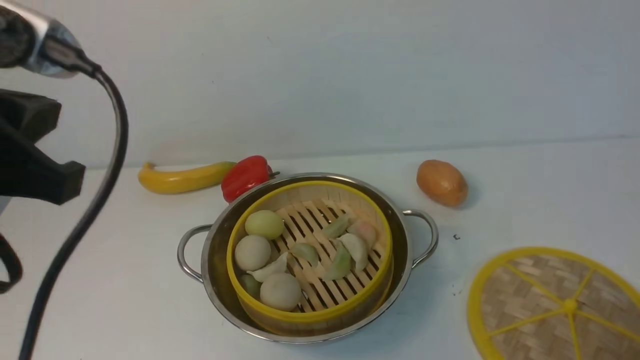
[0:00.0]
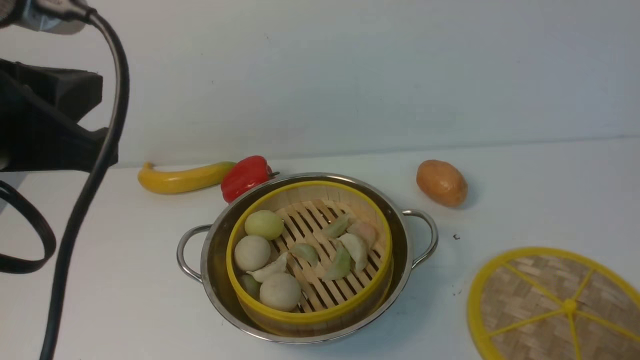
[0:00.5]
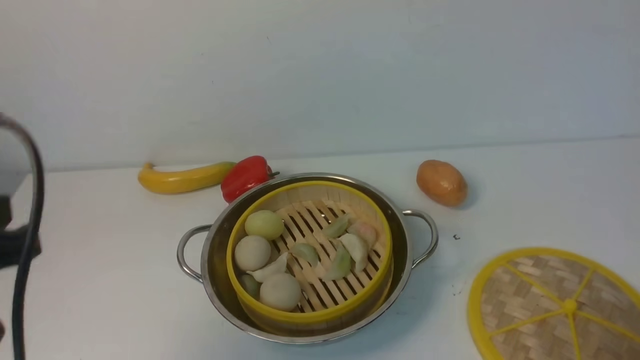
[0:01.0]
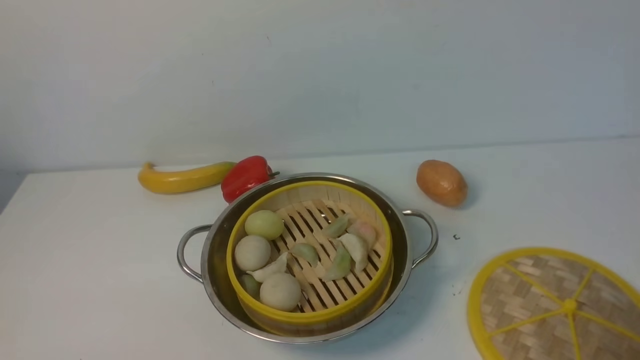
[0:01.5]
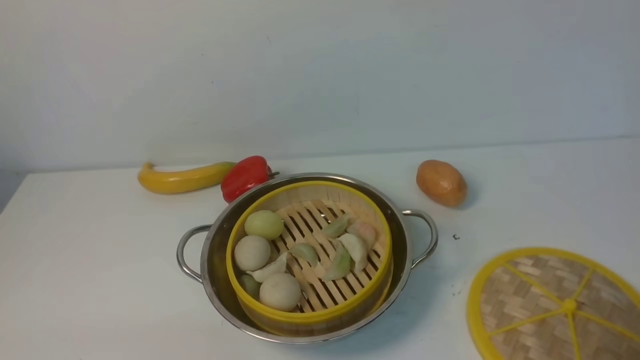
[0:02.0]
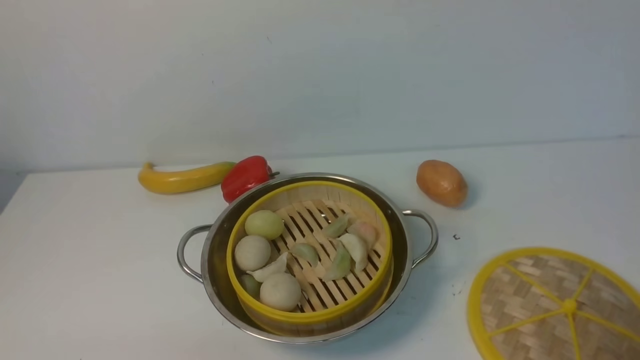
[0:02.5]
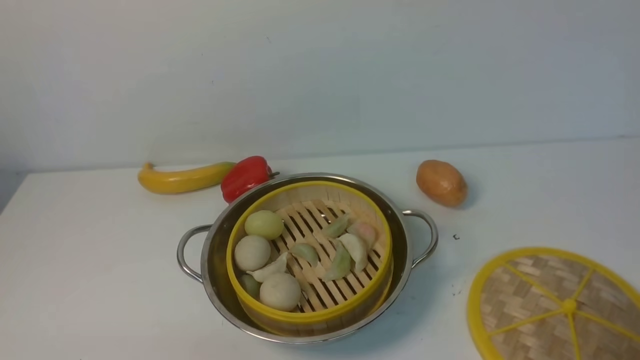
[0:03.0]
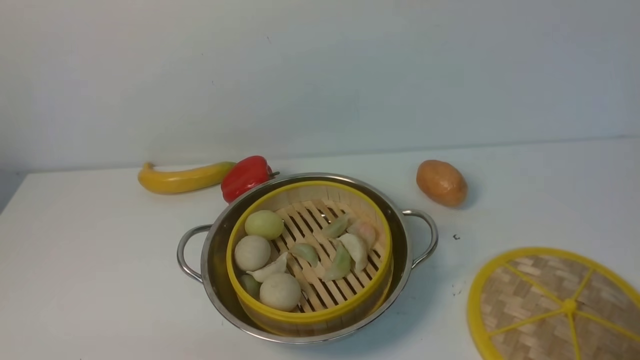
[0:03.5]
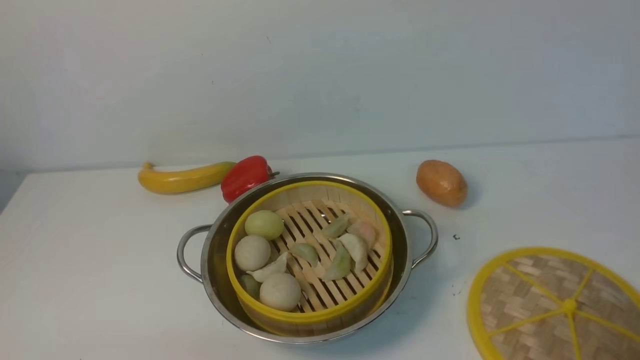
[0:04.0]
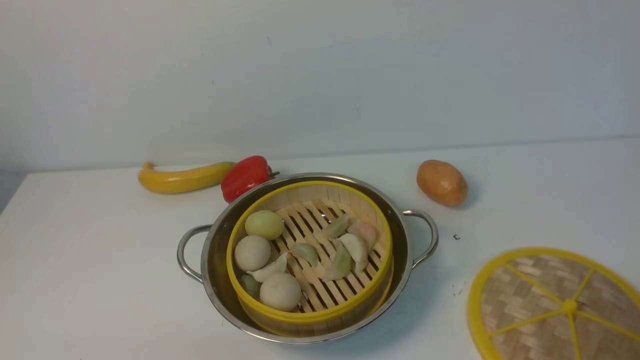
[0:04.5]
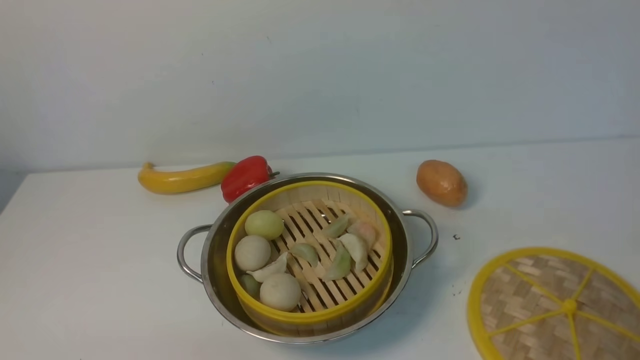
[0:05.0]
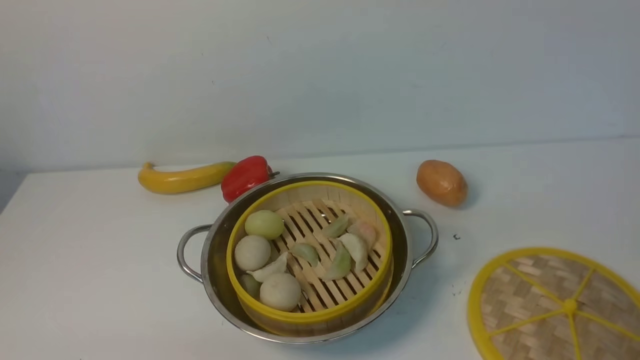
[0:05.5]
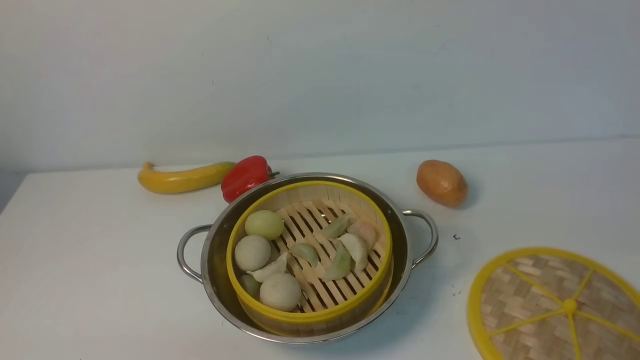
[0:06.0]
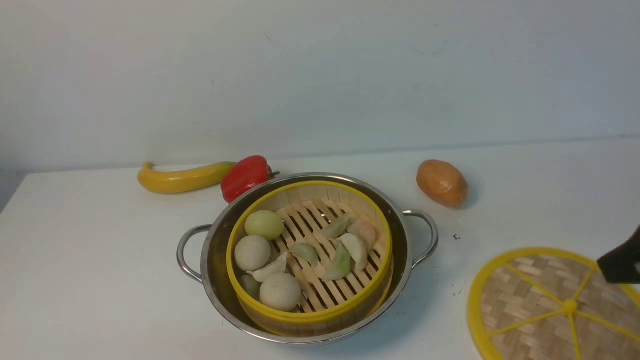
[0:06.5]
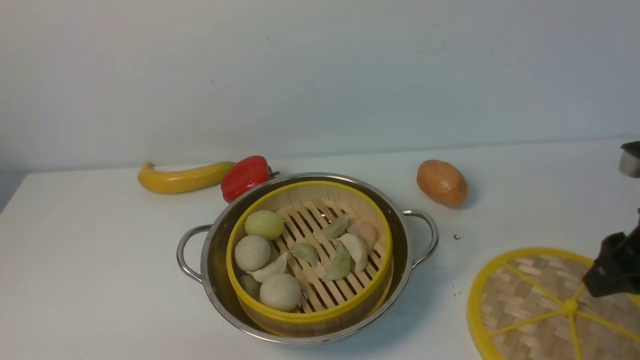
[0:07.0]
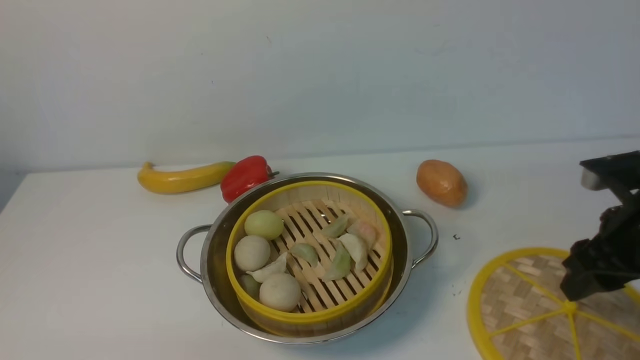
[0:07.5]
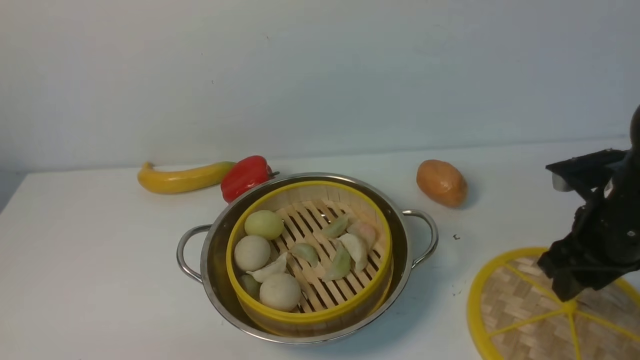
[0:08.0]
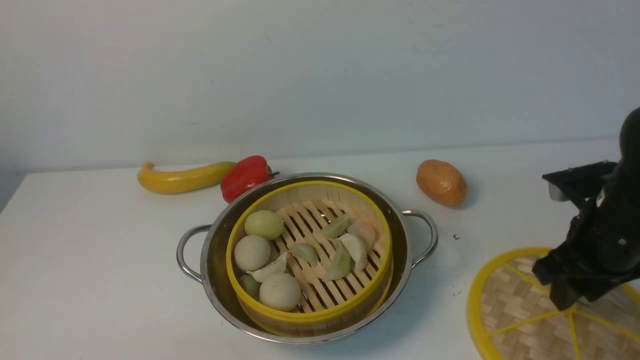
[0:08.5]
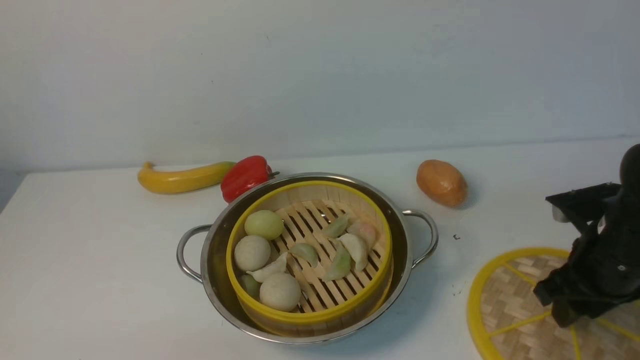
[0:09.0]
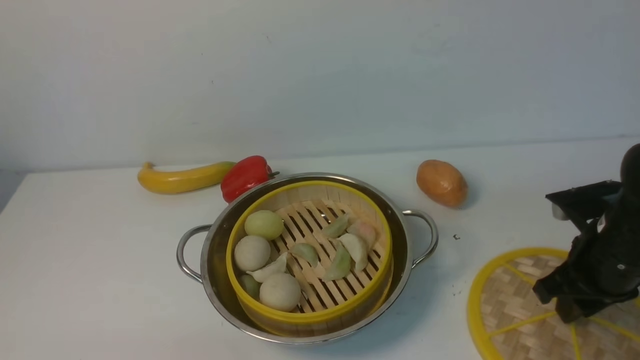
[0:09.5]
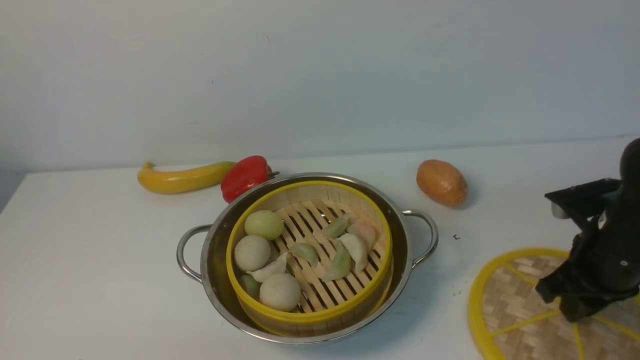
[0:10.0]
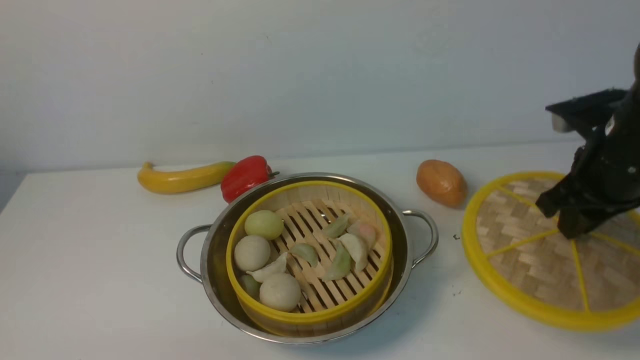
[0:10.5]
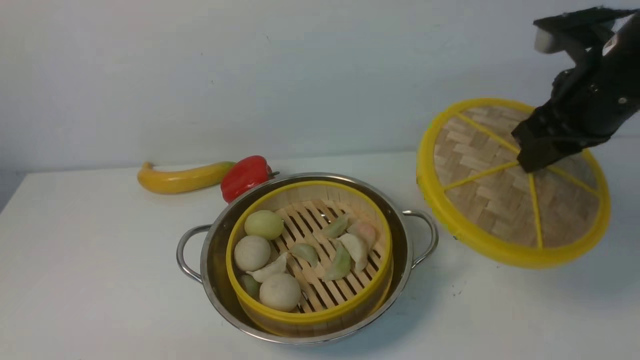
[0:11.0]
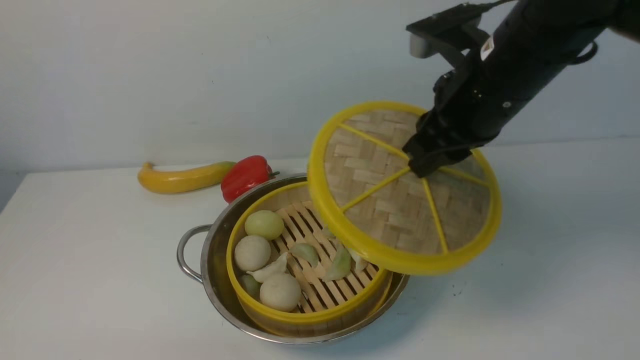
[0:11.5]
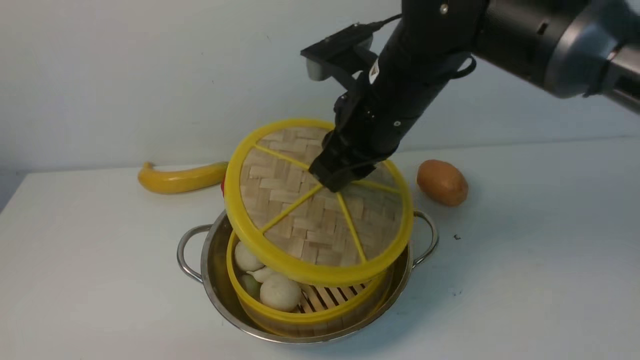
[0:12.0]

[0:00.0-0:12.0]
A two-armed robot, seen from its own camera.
Task of the whole recording: place the steamer in the pot on the white table, and put the lid on the steamer.
Step, 0:00.0 to 0:10.5: use the right arm to lift the lid of the steamer.
0:00.0 to 0:02.0: The left gripper goes about 30 cm downward and backward.
0:06.0 to 0:08.0: The right gripper shifts about 25 cm forward and downward.
0:08.0 to 0:10.0: The right gripper closes up.
0:10.0 to 0:12.0: The right gripper shifts approximately 25 cm to the left and upward.

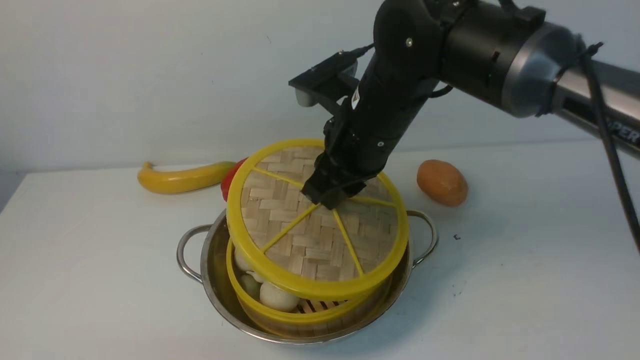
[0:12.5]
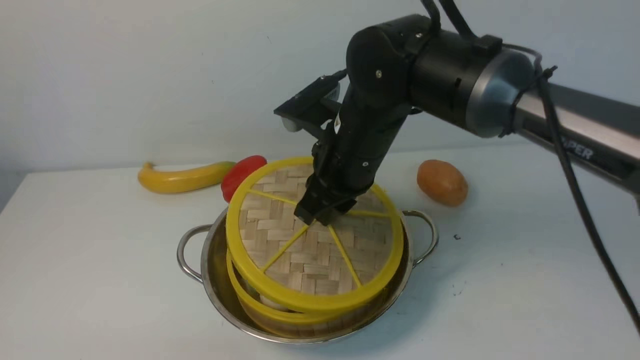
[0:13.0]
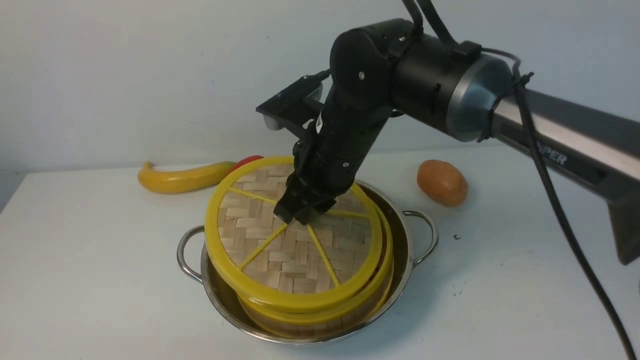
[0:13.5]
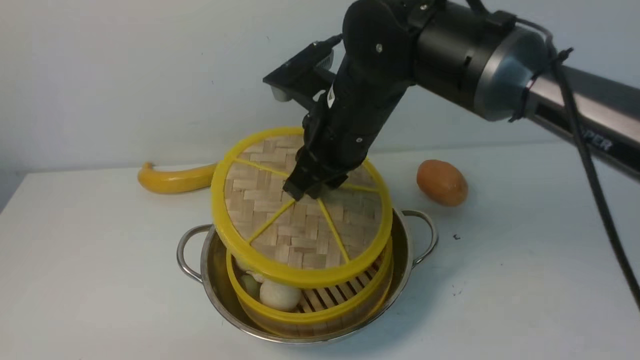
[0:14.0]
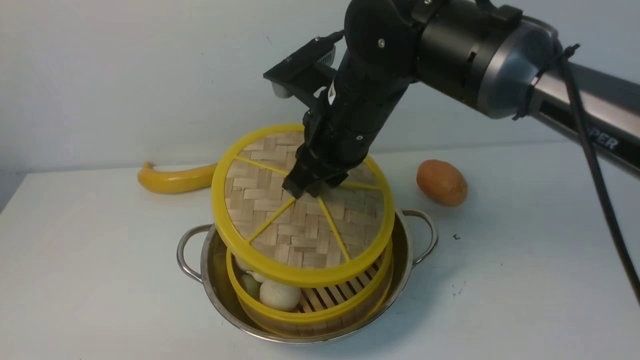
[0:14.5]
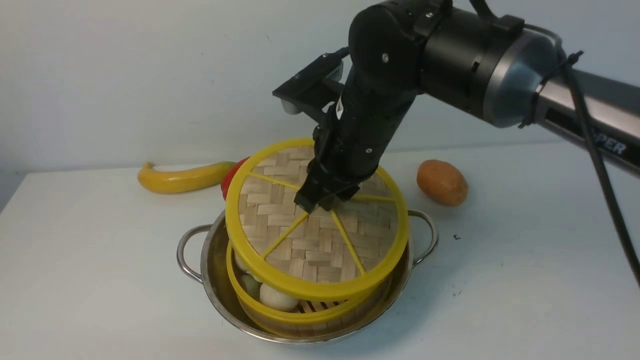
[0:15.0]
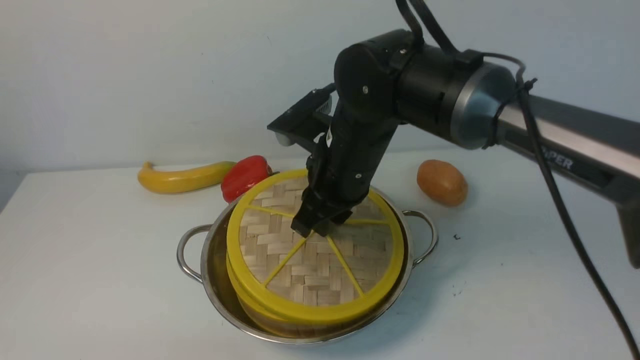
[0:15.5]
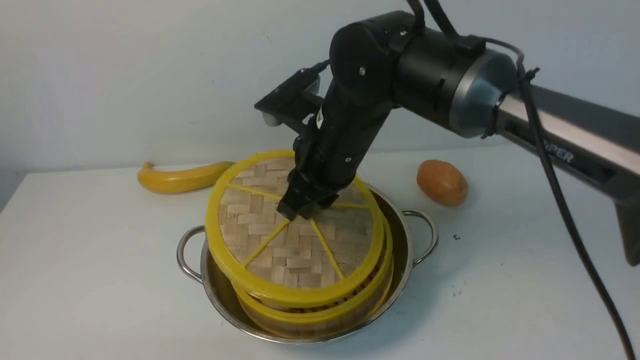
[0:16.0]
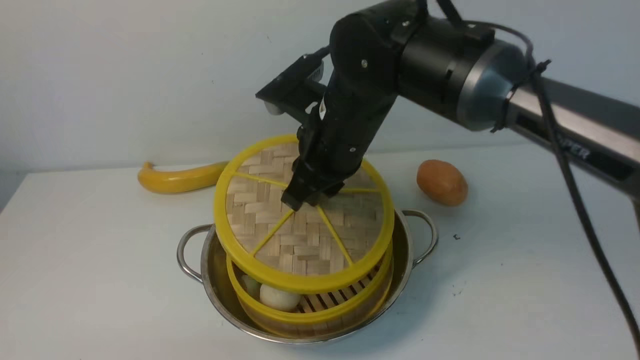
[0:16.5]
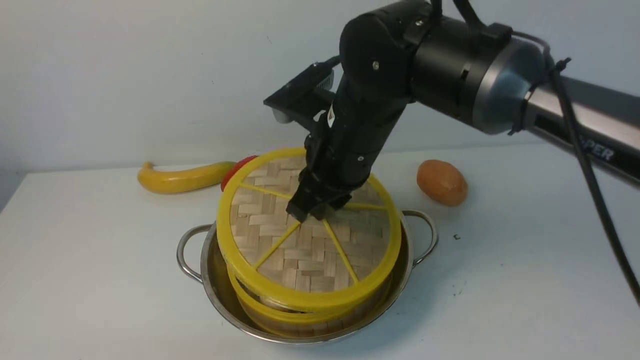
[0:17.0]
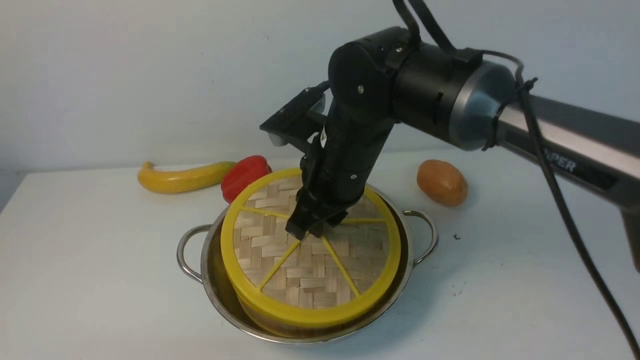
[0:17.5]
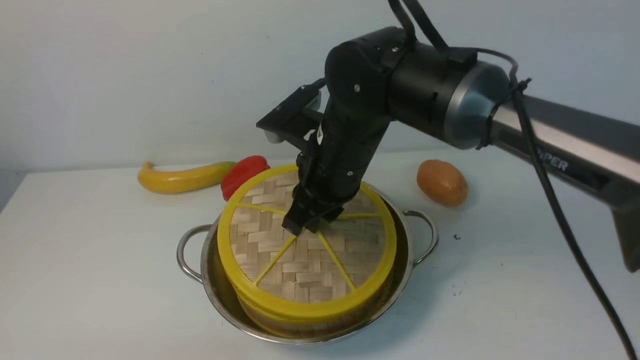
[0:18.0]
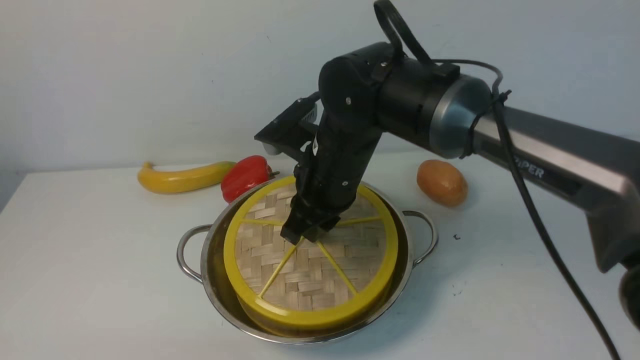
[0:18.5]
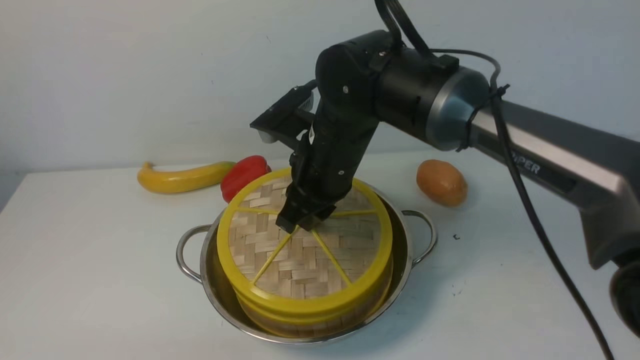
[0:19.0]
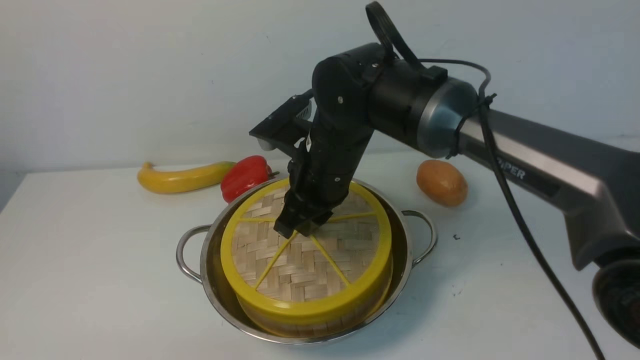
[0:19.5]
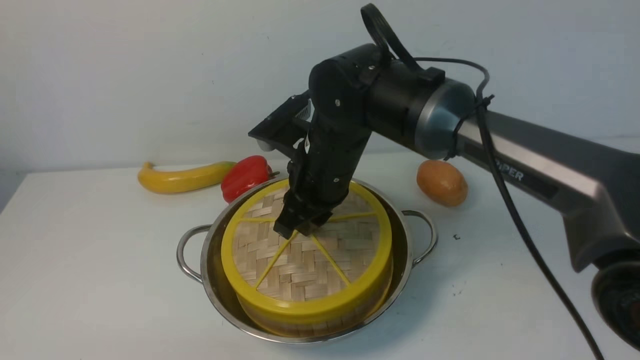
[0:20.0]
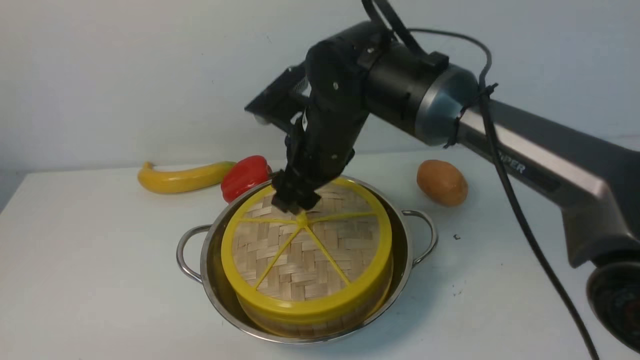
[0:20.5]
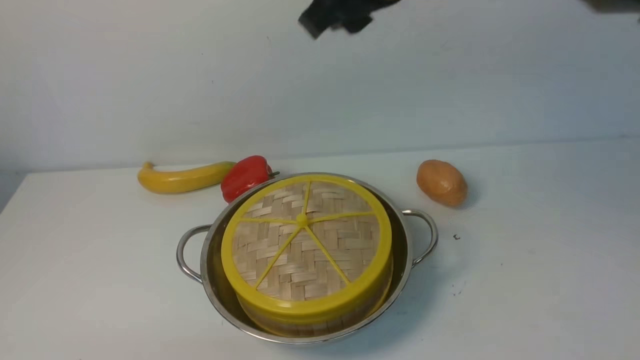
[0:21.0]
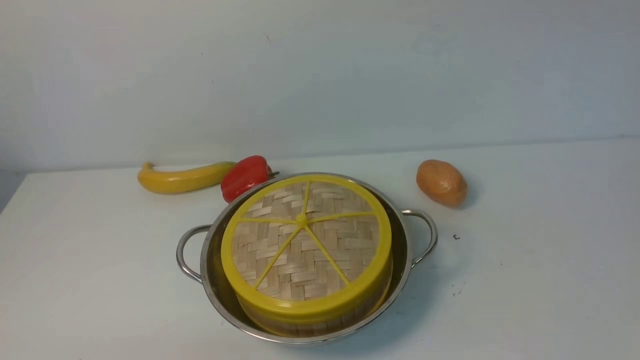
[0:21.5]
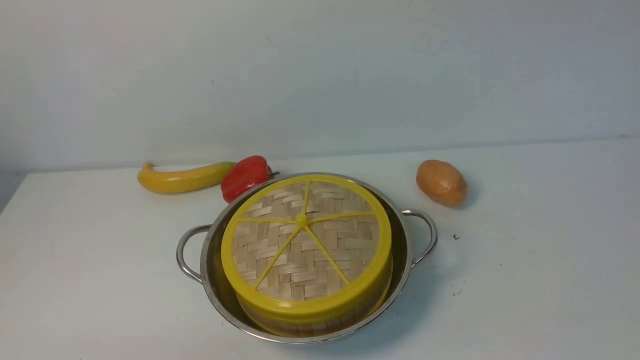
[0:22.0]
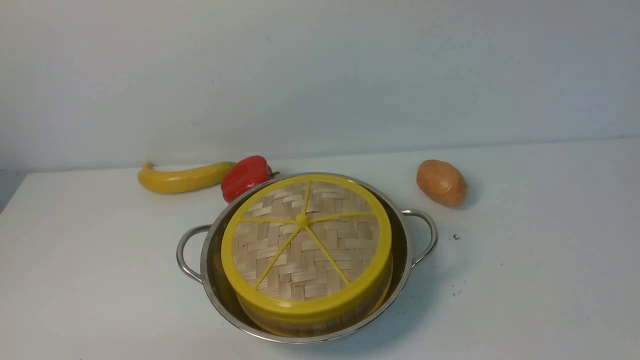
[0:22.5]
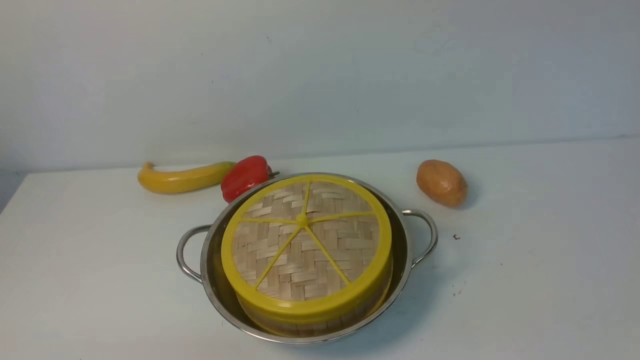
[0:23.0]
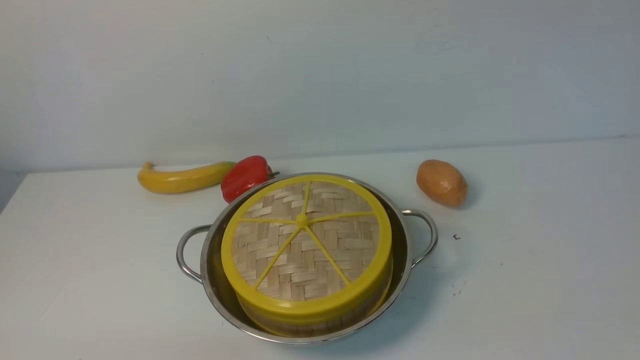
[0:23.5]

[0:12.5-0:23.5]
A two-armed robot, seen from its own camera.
Task of the whole recording: place the steamer in the pot on the white table, and put the lid on the steamer.
Step, 0:12.5 to 0:21.0: use the right arm to place the steamer lid on the steamer.
0:12.5 to 0:18.0: The grippers make only small movements.
0:18.0 to 0:20.0: The grippers move only a little.
0:20.0 to 0:21.5: The right gripper travels upward and to the right by roughly 35 cm, and closes up.
